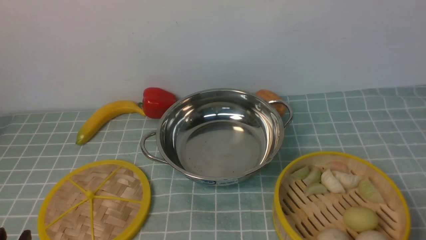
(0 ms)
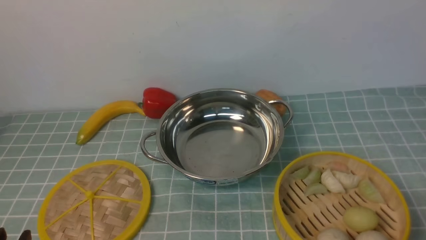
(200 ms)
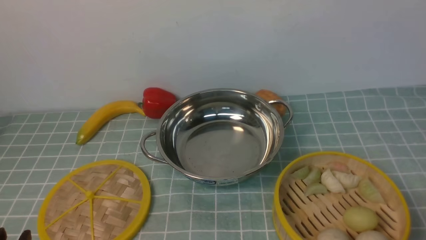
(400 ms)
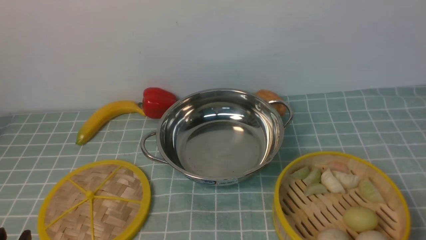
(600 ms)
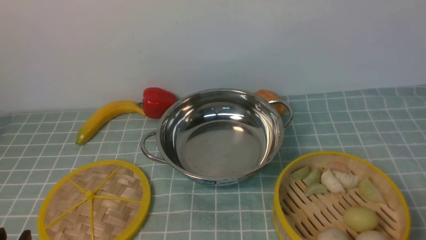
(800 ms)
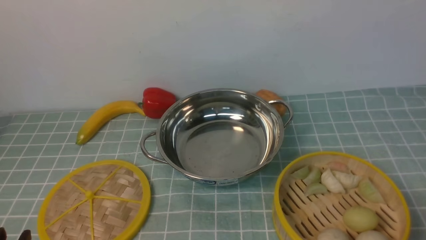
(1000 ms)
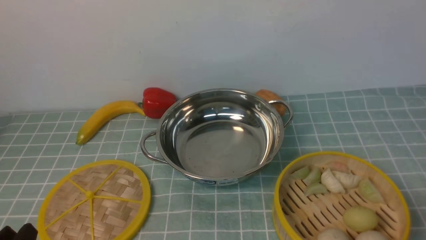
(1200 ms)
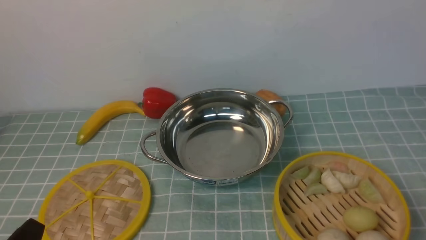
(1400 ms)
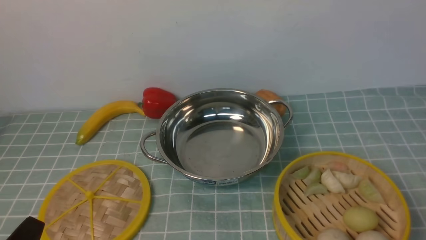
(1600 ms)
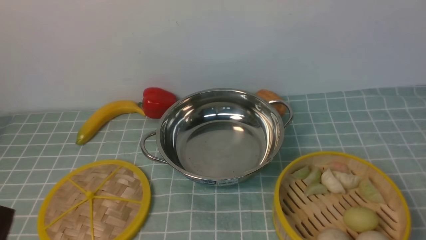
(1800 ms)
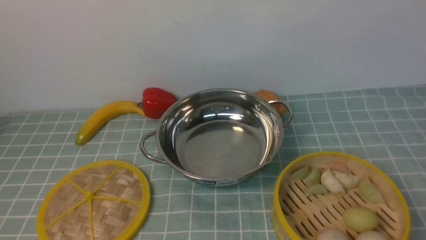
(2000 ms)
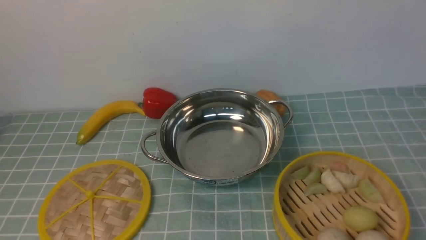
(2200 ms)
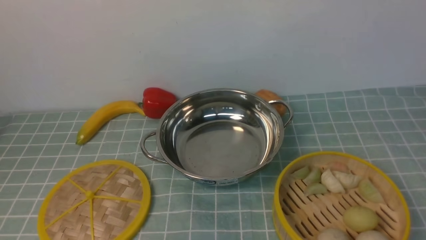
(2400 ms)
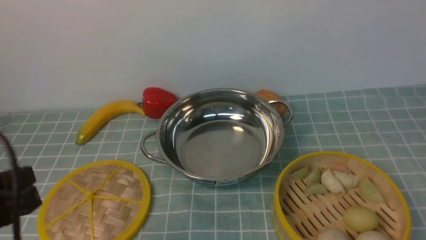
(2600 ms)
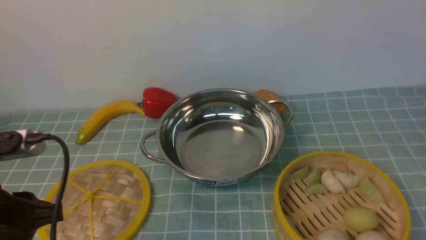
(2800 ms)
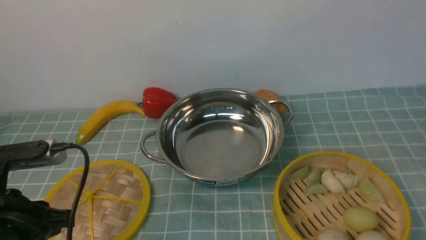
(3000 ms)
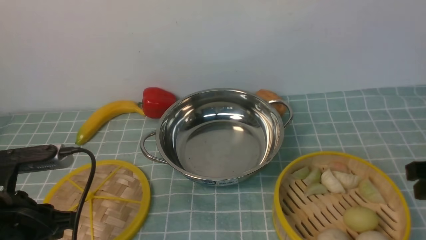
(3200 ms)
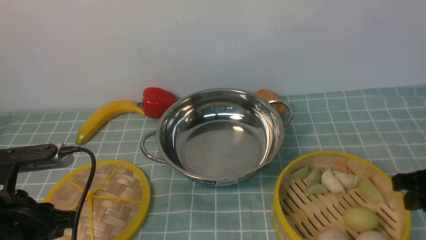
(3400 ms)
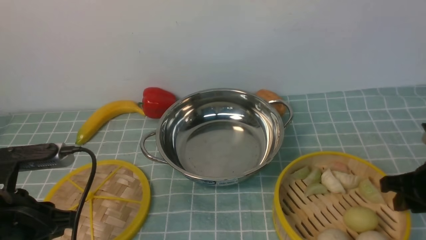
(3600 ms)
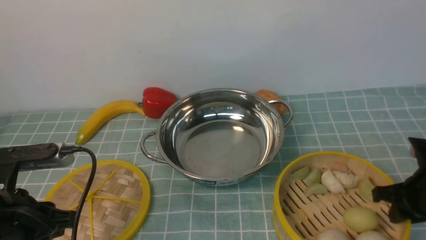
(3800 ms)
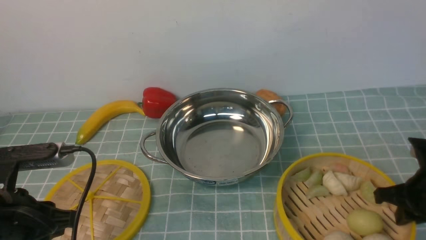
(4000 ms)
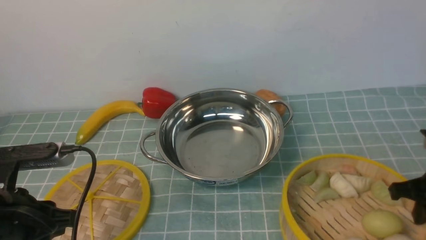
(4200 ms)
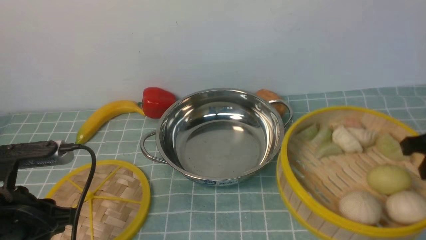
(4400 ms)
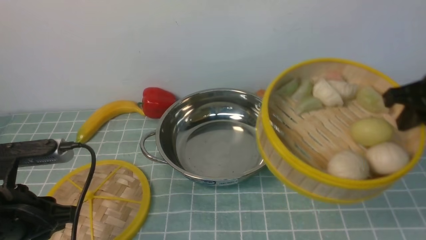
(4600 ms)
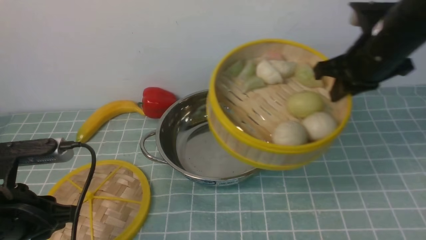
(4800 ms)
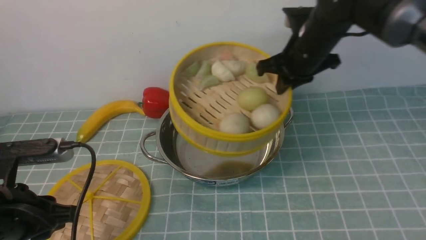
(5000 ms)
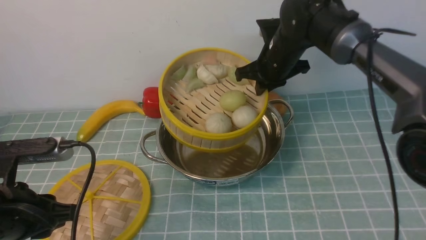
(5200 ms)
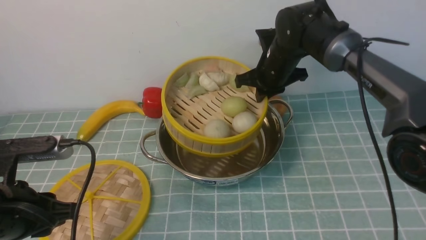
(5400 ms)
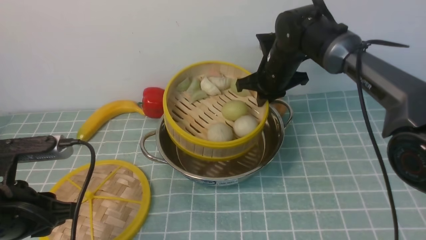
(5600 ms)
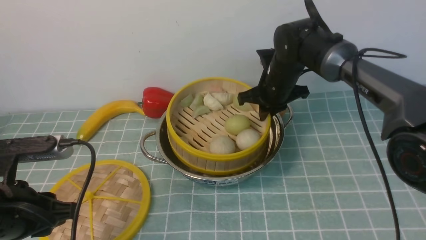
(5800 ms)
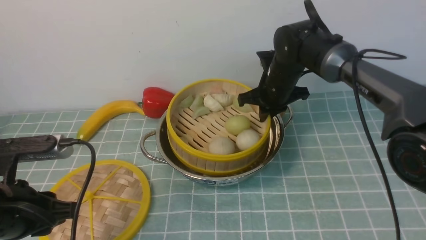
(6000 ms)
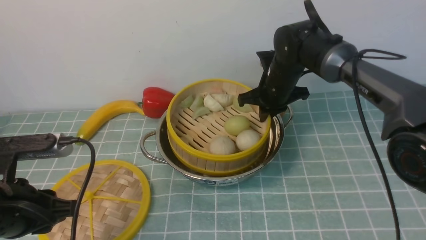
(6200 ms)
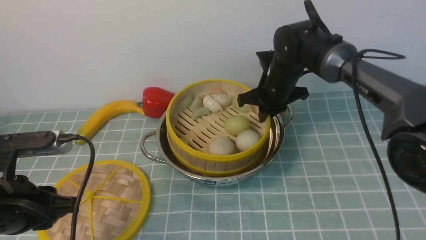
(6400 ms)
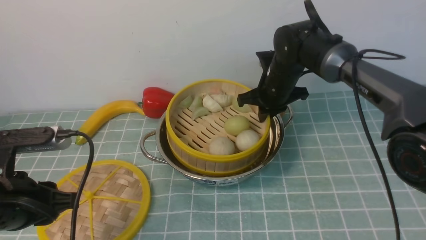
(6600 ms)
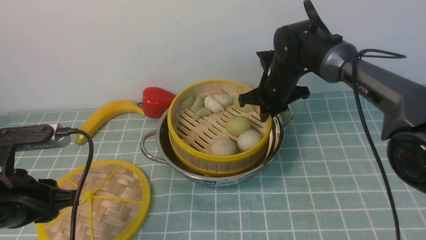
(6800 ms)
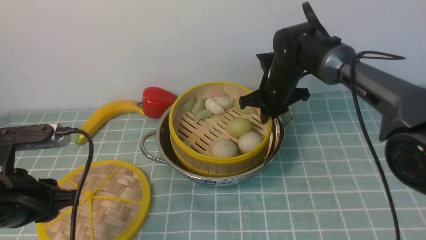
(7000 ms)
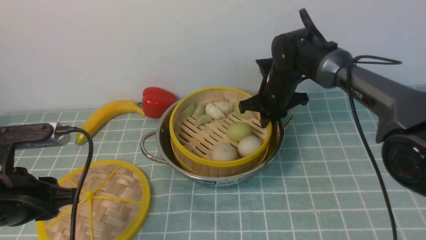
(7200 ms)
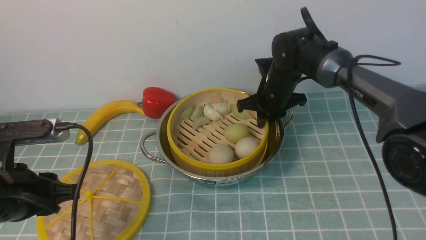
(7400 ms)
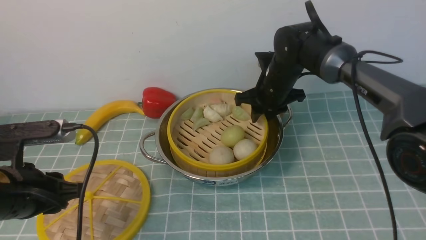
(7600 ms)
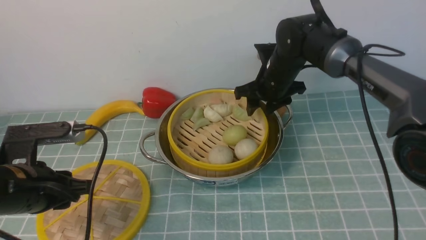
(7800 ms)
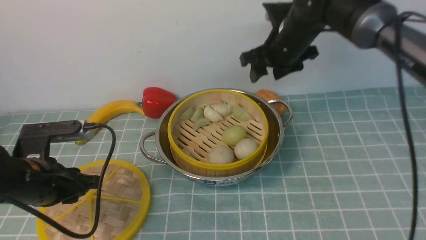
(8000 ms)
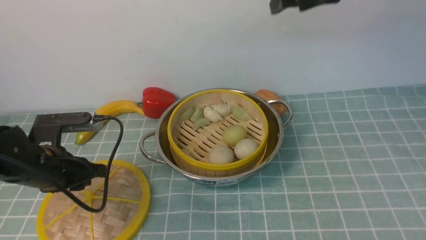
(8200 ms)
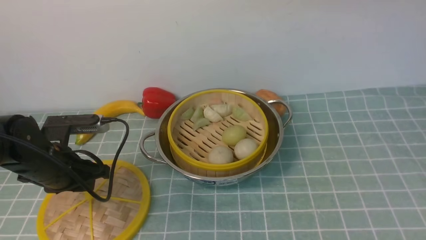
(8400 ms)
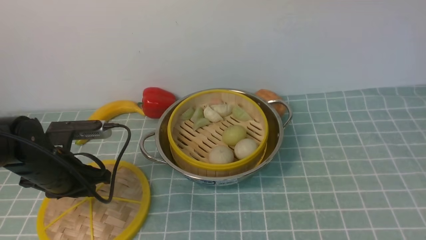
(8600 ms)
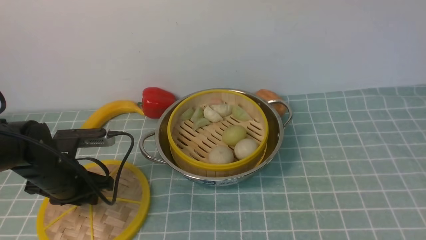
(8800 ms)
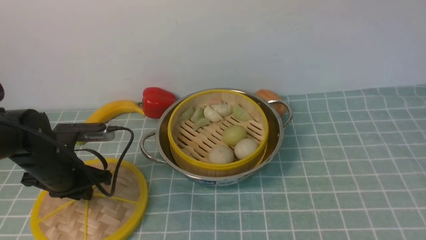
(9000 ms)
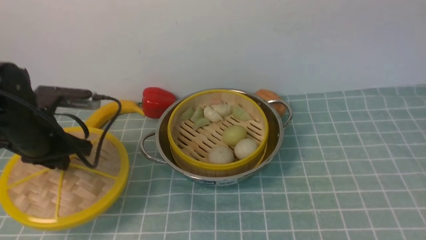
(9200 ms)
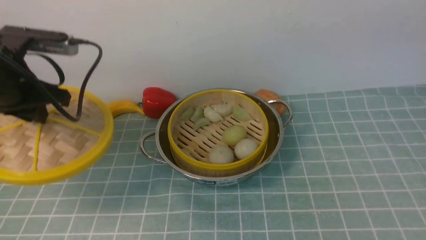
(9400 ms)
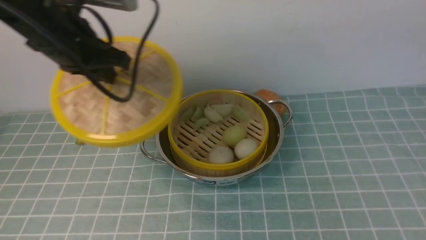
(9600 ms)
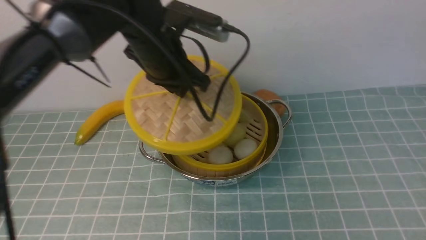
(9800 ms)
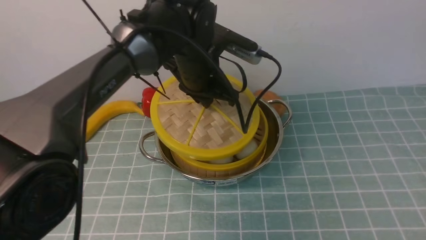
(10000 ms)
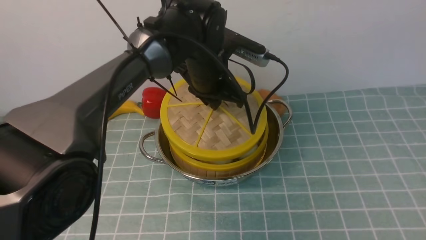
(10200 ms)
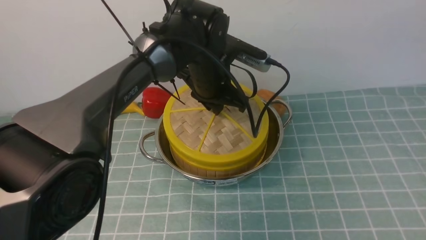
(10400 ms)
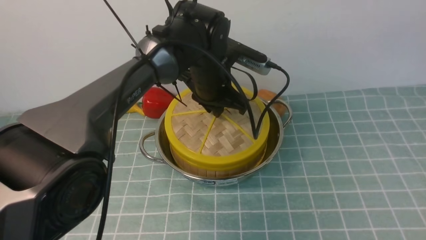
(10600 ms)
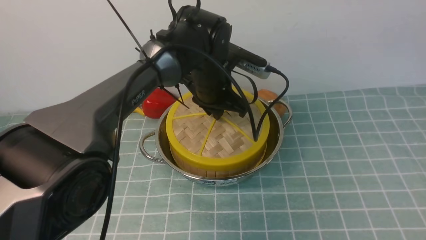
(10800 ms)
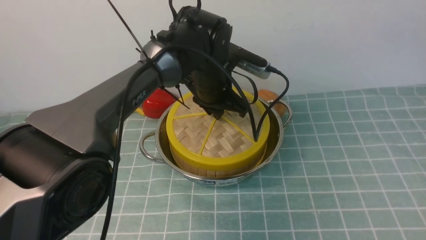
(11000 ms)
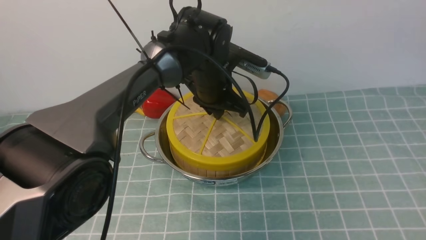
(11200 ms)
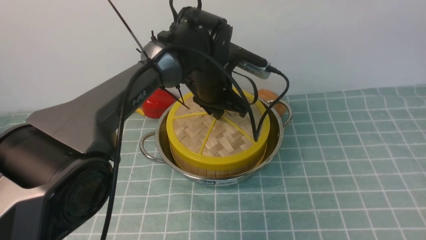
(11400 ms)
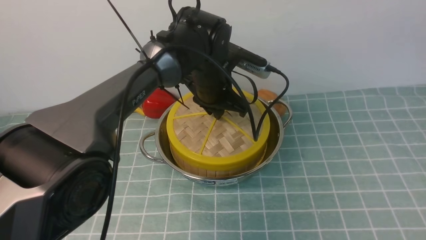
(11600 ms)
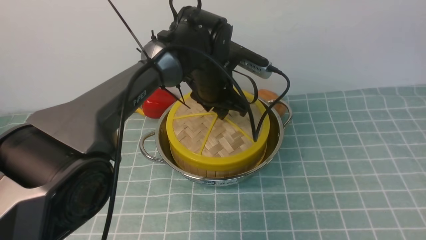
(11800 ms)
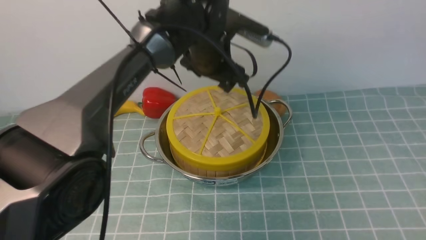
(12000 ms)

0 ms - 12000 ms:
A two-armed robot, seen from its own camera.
Task of the whole recording: place the steamer in the pot on the blue tablecloth, and put the lid on the steamer.
Step, 0 ms - 4400 ms: use the right arm to lift the steamer closest to it.
Step, 4600 ms - 8000 ms: use the right arm to put the steamer into the iron steamer pot in the middle.
Step, 8200 ms - 9200 ms: use the left arm to lift the lid of the steamer.
1600 ms - 3000 ms: The left gripper goes approximately 10 cm forward and upward.
3000 ms - 4400 ms: The right gripper moves forward, about 10 cm, goes downward and returns, some 15 cm each way, and closes its fingers.
4400 ms - 6000 ms: The right gripper shifts about 25 cm forward and to the left.
6000 ms - 7600 ms: The right gripper opens up.
7600 ms - 9000 ms: The left gripper is displaced forward by roughly 10 cm; the right gripper is displaced upward and backward by some 50 cm.
9000 ms - 10400 ms: The right gripper changes place by about 5 cm. The left gripper travels to the right and forward by roughly 25 cm.
10400 ms - 12000 ms: The left gripper is displaced upward by some 5 cm, and opens.

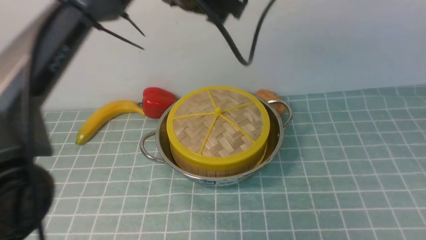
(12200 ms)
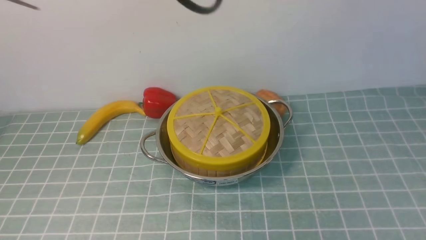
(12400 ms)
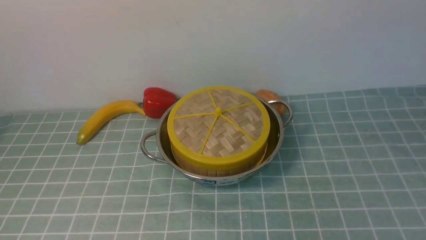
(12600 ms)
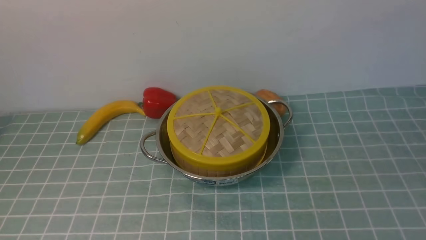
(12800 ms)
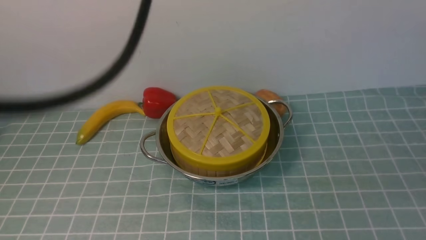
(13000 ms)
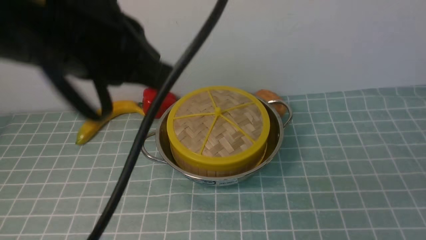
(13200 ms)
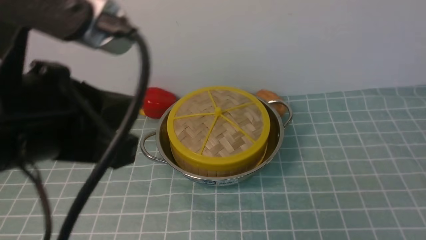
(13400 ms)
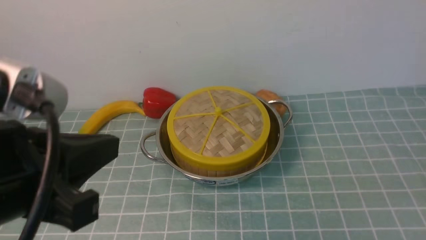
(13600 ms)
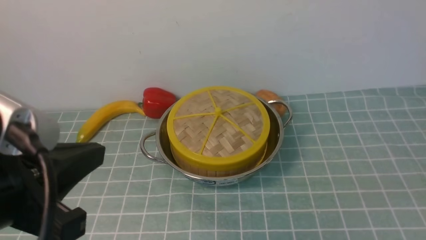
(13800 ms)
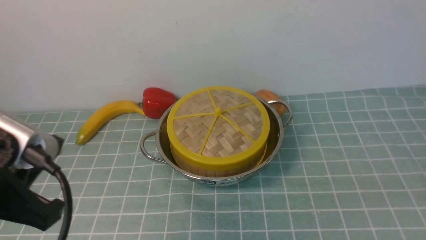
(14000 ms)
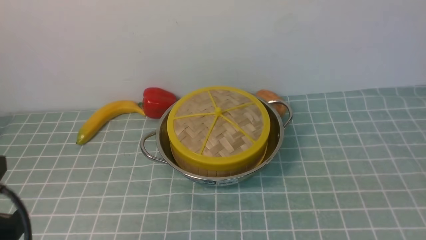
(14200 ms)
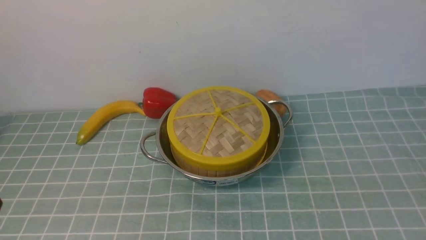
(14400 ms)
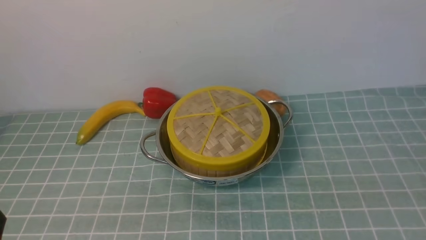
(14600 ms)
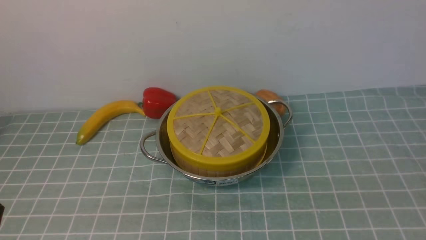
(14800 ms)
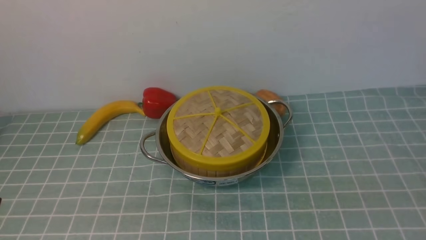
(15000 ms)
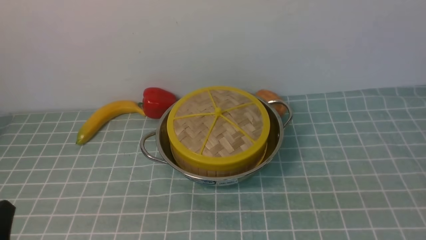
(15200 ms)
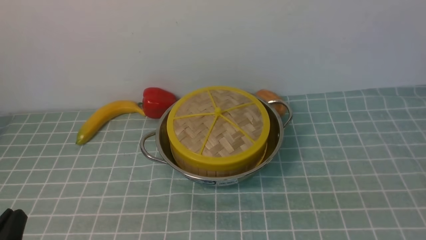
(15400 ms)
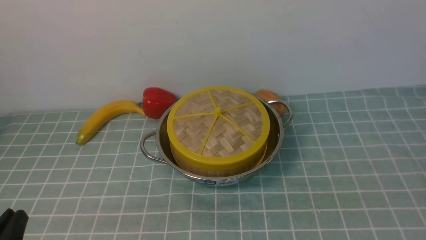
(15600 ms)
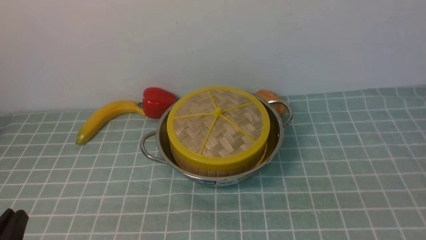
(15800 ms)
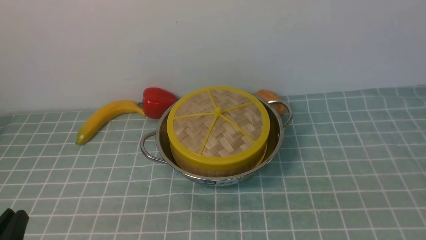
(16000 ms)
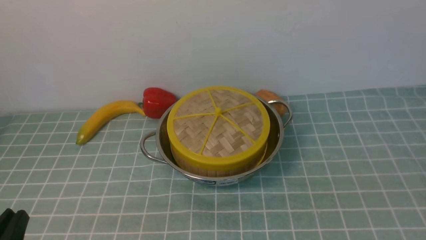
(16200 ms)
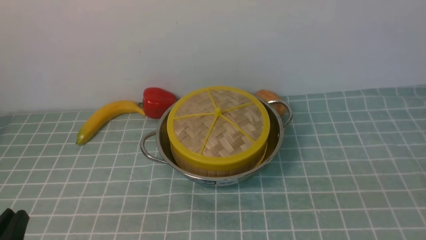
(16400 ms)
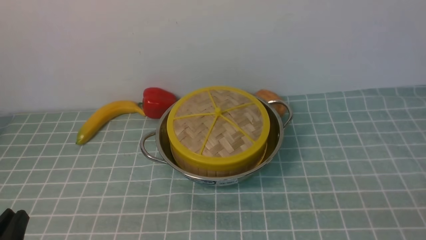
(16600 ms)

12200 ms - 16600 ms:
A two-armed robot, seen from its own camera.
Task of the whole recording: place the steamer in the pot on the blue tablecloth, and put the lid on the steamer.
12200 ms - 13600 ms: The right gripper shifts approximately 20 cm downward and backward; the left gripper heads backward and to the left, covering roughly 30 cm, and closes.
13600 ms - 15200 ms: The left gripper moves downward and to the left, some 20 cm.
